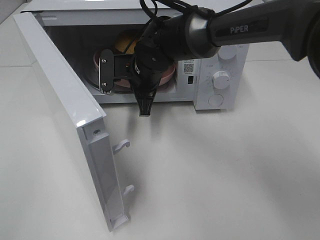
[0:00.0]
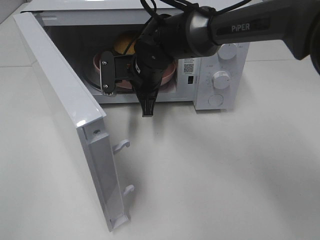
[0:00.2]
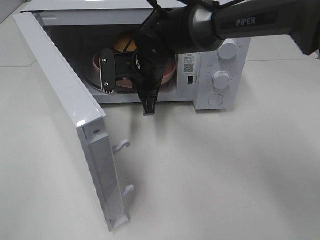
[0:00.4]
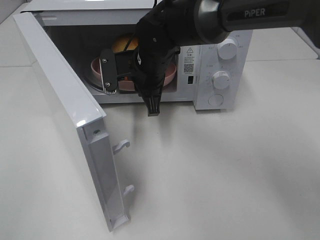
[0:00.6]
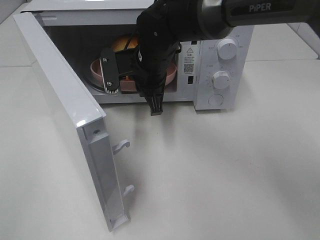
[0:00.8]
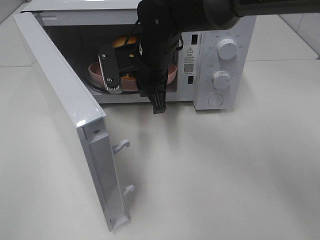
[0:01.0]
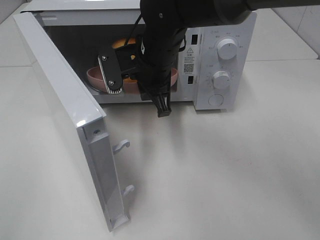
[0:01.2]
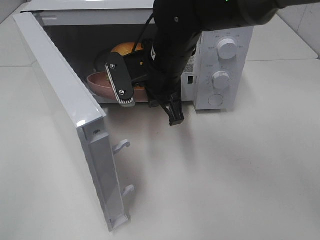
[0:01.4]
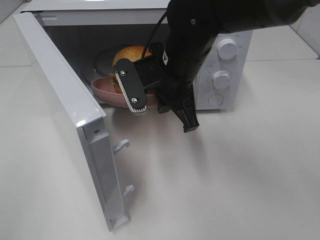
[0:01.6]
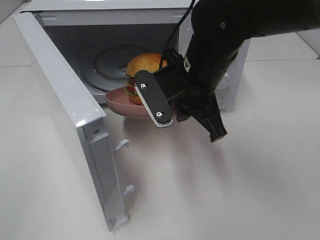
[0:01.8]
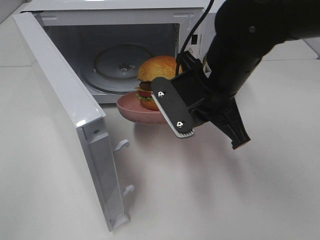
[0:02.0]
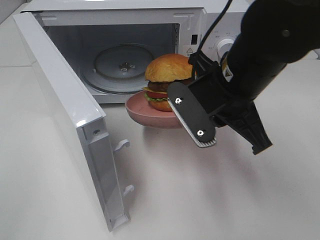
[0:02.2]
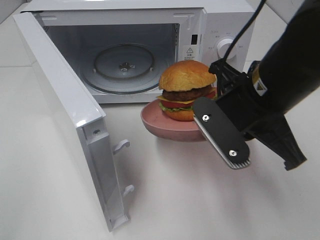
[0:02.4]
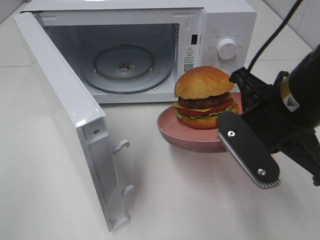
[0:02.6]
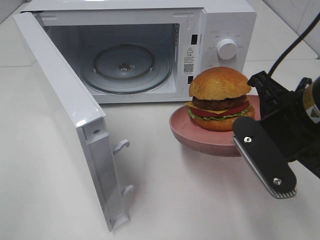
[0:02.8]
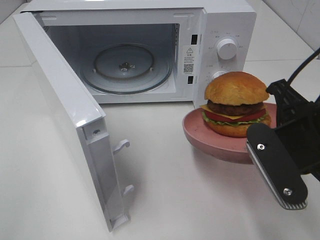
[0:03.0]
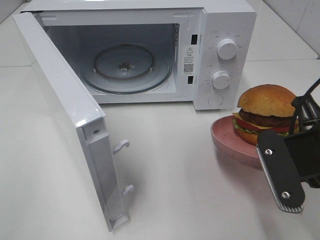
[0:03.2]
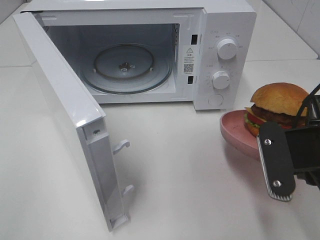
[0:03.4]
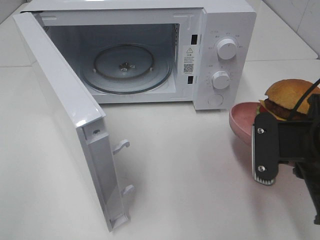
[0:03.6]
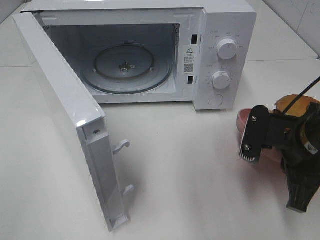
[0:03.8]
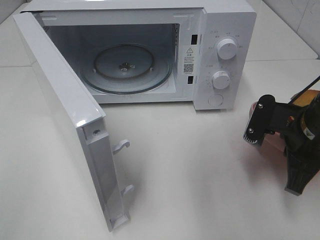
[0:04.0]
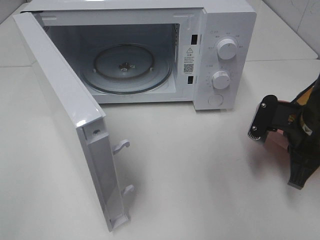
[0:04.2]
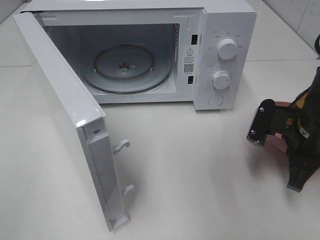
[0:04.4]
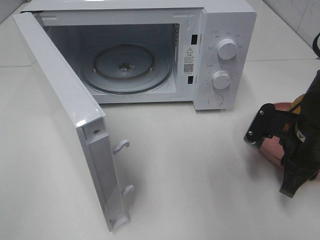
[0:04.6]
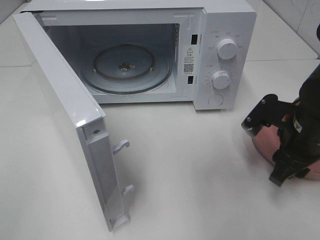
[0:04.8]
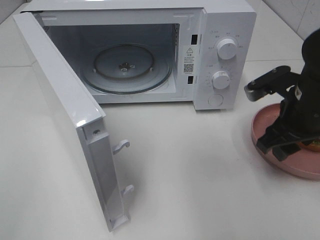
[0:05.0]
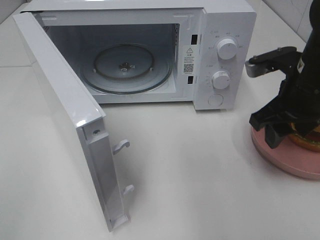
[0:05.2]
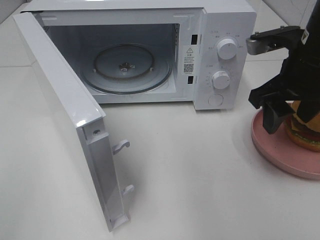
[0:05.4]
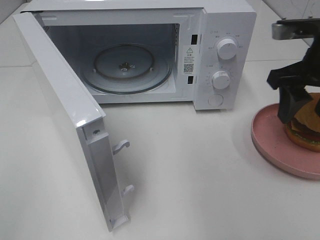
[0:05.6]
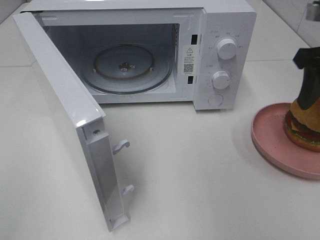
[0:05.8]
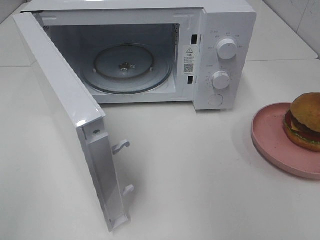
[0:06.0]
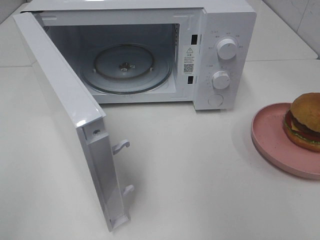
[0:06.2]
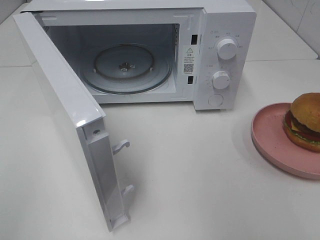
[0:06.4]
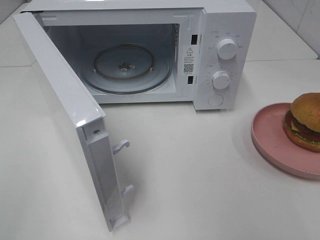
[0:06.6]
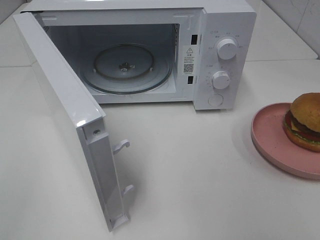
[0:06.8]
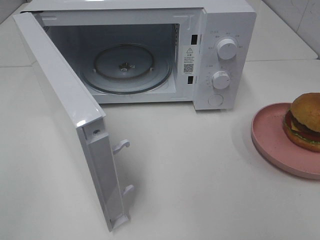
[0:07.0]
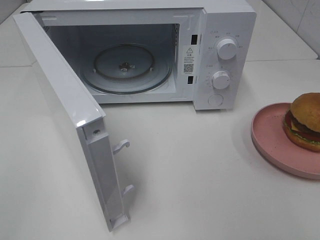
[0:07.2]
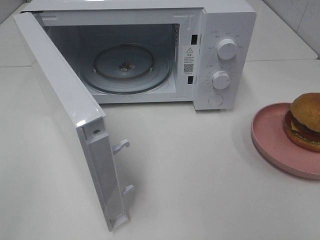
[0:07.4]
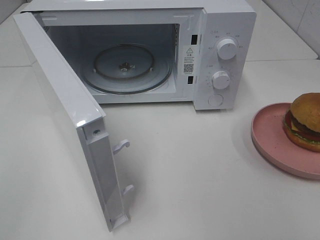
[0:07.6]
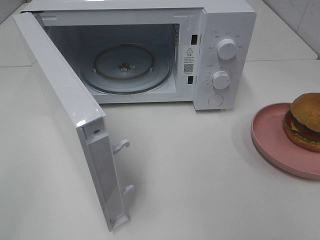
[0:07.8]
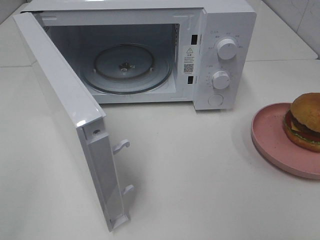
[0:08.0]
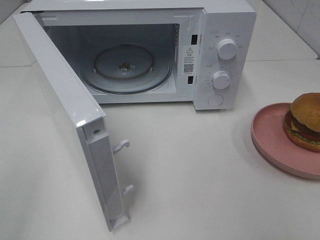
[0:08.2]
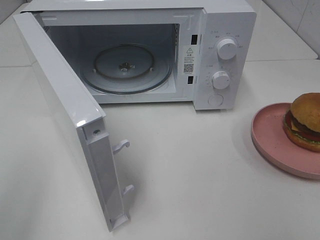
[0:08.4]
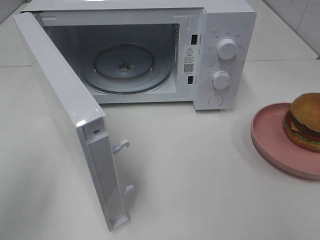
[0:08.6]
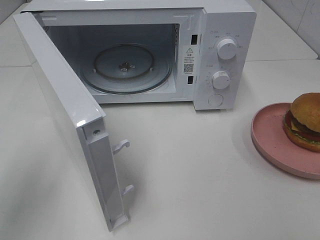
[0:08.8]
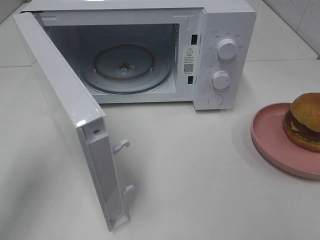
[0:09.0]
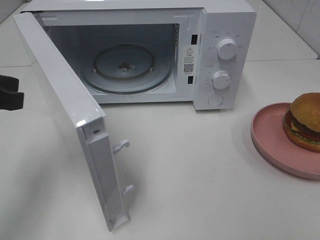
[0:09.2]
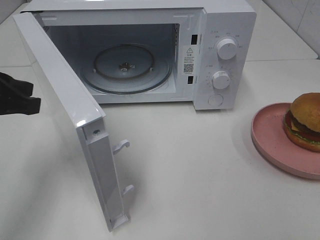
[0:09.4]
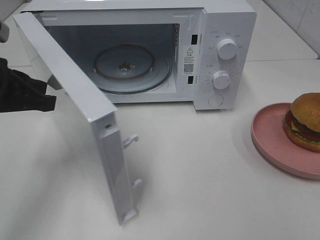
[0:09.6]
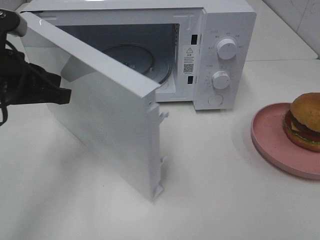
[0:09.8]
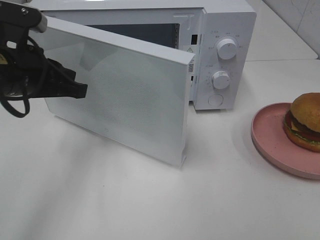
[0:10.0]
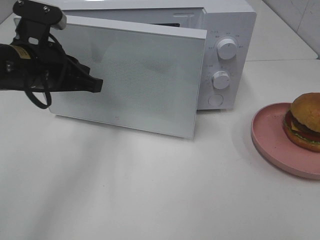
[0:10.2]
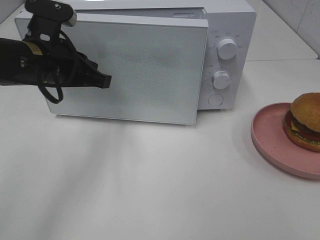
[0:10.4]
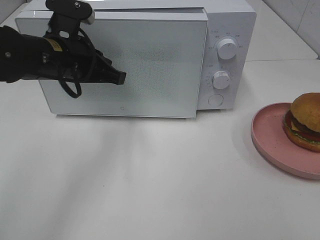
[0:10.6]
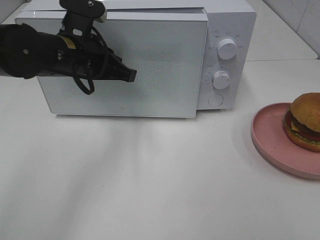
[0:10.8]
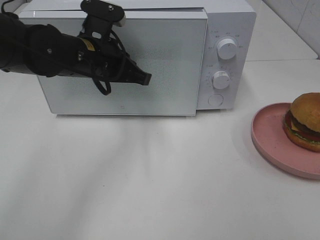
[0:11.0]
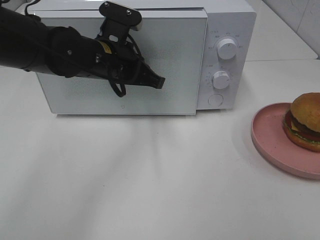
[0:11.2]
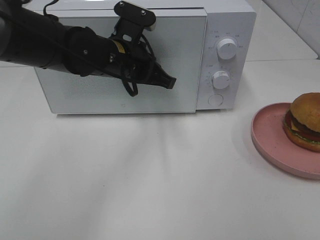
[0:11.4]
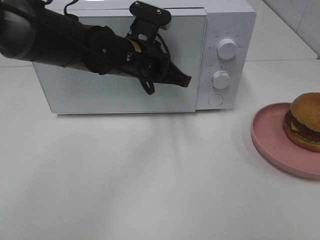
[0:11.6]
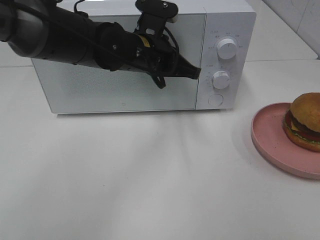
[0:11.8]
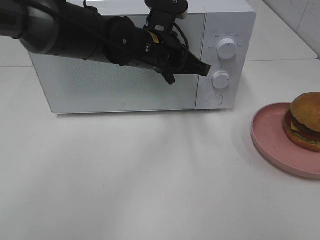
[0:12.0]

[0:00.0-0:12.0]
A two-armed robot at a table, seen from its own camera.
Task of the whole recording: Heat the burger.
Step, 0.0 to 4.8 s: Right hand: place the plate on the table.
0.0 to 1.6 s: The right gripper goes some 10 cm backward, upward and to the right.
1.6 to 3.0 s: The right gripper travels to the right and backward by some 20 cm.
3.0 to 4.4 s: The right gripper is displaced downward, forward and to the right by about 15 cm.
4.4 to 6.0 s: The right gripper moves upward, some 20 cm, and opens.
7.6 to 9.0 s: The left gripper is displaced forward by about 20 cm.
9.0 to 10.4 s: The left gripper goes approximately 15 cm forward and to the right.
10.4 to 12.0 s: The left gripper heads to the right, covering roughly 15 cm.

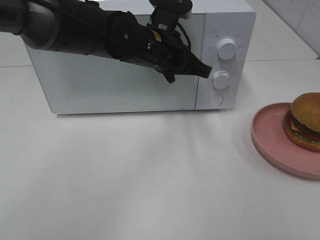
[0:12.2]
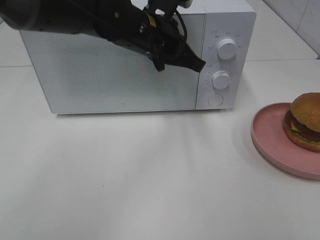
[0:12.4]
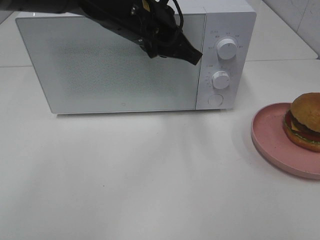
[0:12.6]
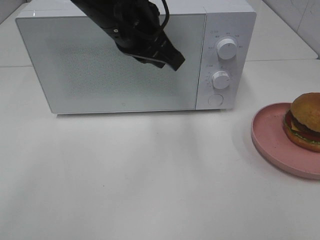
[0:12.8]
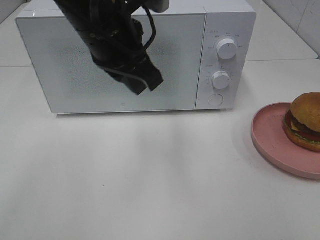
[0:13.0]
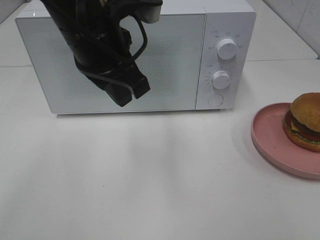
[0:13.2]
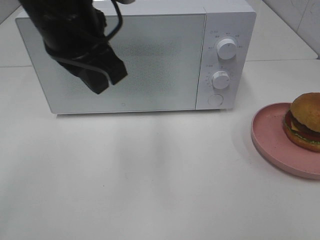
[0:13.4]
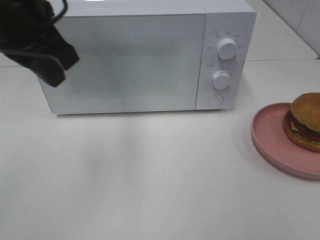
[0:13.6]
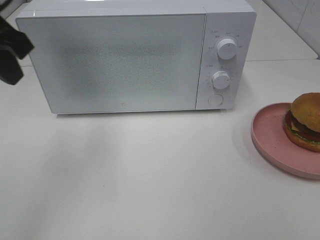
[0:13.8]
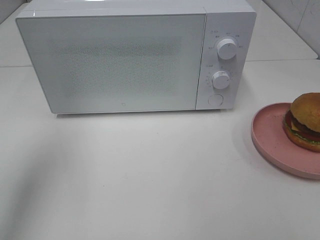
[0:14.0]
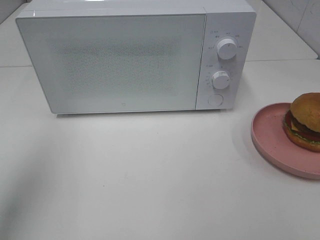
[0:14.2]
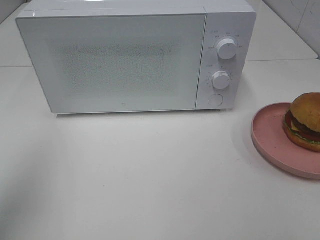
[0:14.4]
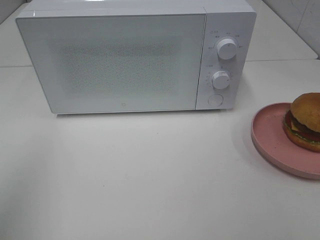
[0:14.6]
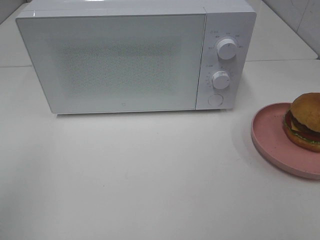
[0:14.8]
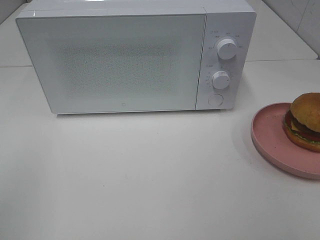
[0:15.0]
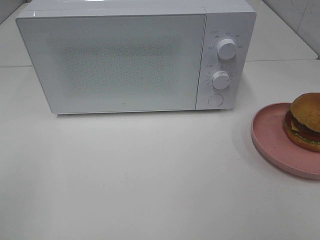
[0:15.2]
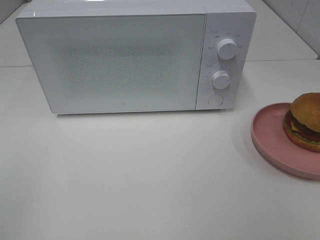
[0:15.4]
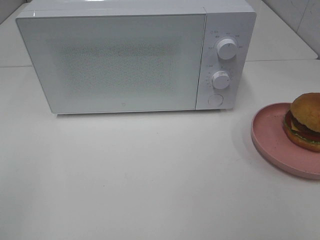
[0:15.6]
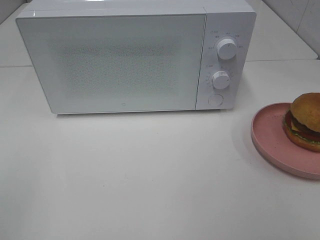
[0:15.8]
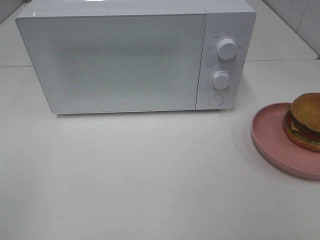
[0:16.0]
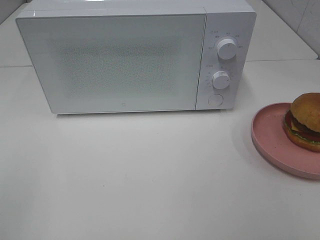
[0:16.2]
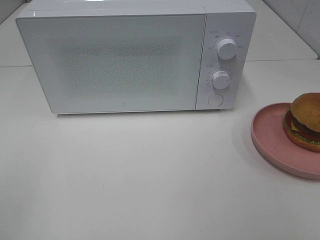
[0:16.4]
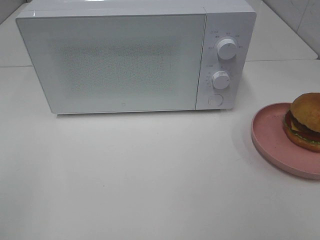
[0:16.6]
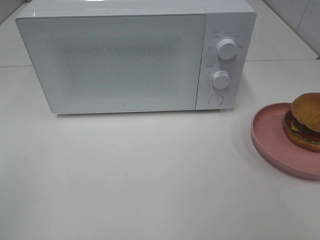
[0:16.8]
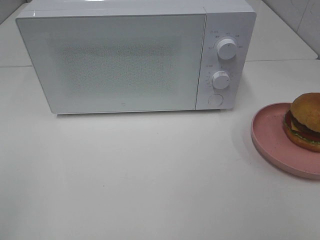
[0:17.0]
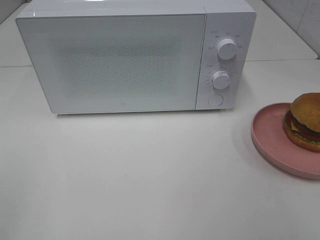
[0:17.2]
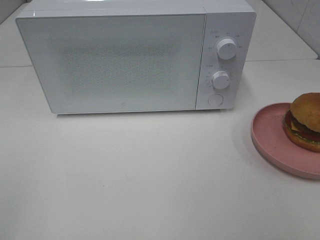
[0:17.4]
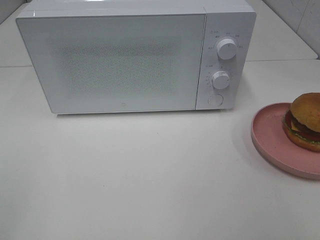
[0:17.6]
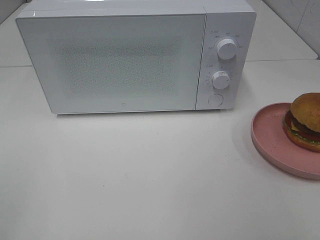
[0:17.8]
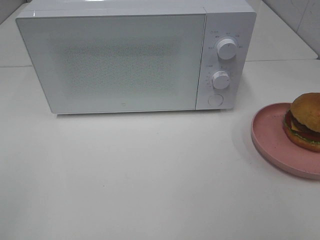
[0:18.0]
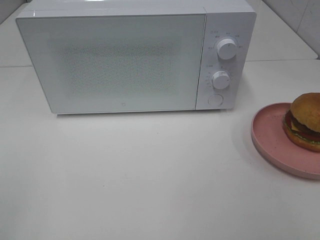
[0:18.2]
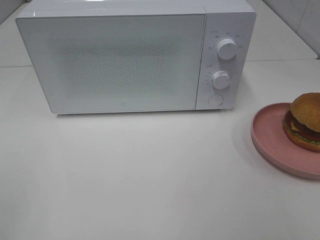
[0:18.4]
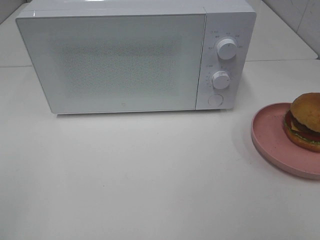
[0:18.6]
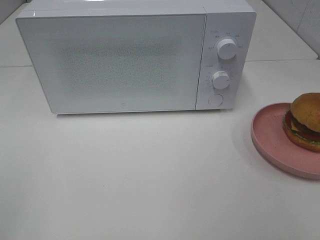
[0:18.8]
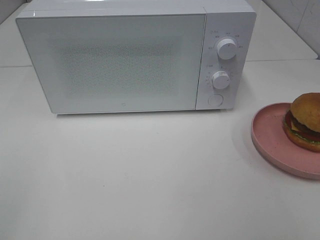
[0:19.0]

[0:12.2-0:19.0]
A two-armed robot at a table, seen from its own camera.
Task of the whole recording: Heat the burger.
12.2 to 13.6 s: The left gripper moves to the left, upward and backward, roughly 20 cm.
13.6 to 15.0 s: The left gripper shifts roughly 30 cm backward and to the left.
17.6 to 19.0 s: Both grippers stay about where they are.

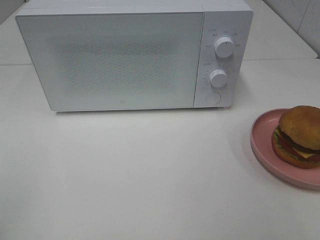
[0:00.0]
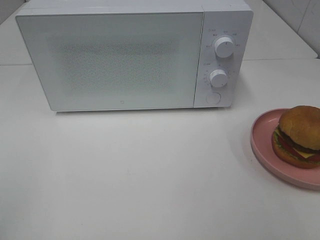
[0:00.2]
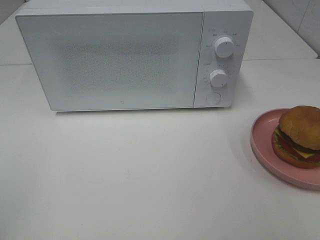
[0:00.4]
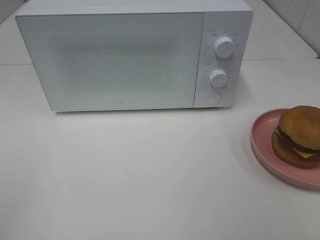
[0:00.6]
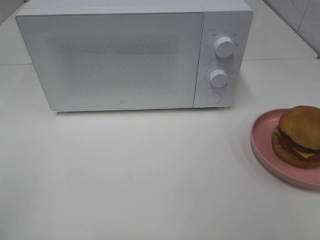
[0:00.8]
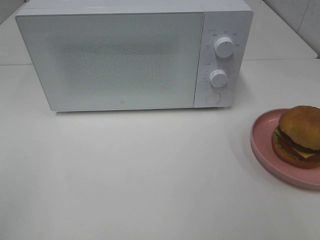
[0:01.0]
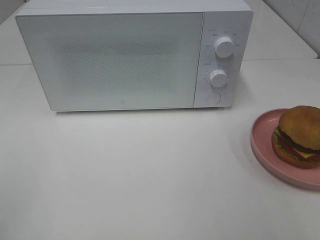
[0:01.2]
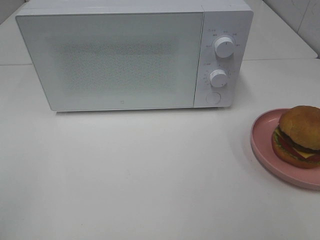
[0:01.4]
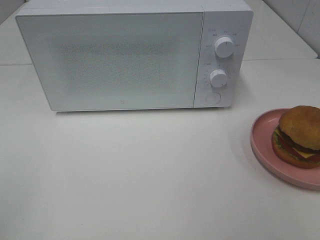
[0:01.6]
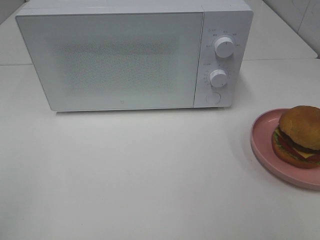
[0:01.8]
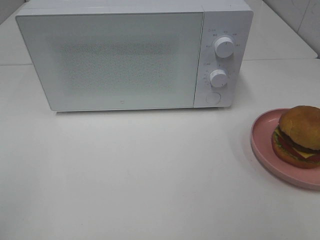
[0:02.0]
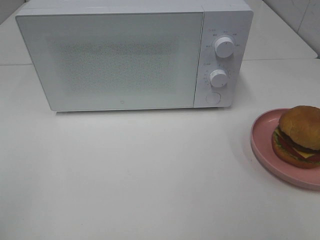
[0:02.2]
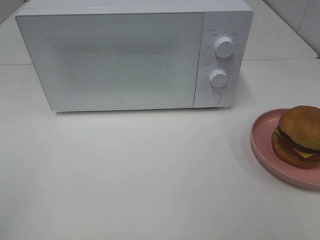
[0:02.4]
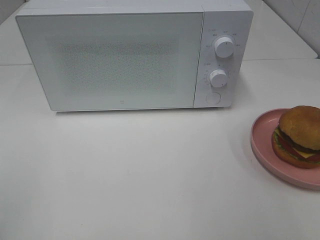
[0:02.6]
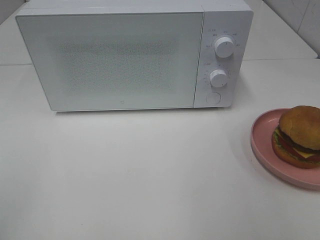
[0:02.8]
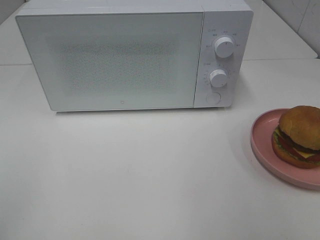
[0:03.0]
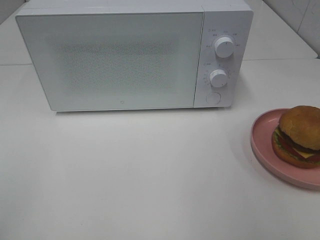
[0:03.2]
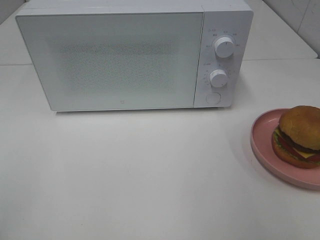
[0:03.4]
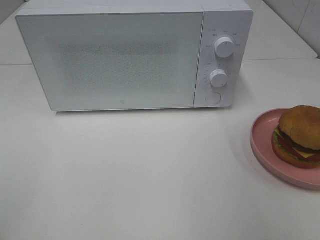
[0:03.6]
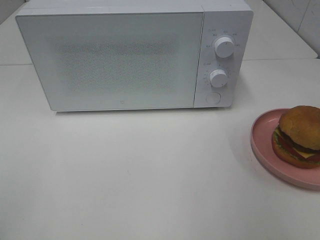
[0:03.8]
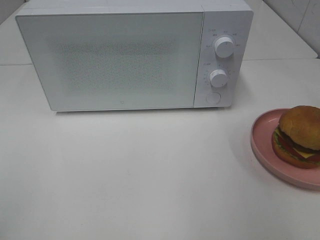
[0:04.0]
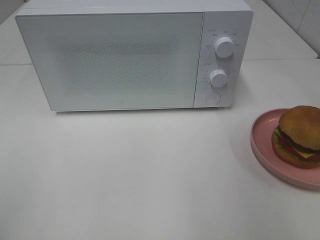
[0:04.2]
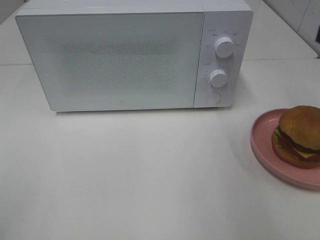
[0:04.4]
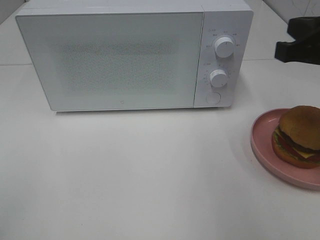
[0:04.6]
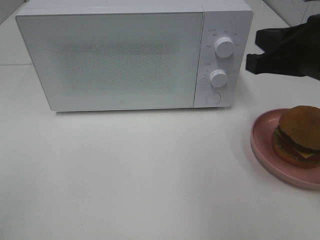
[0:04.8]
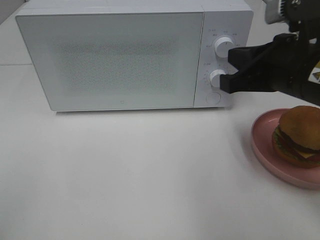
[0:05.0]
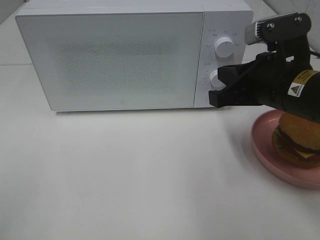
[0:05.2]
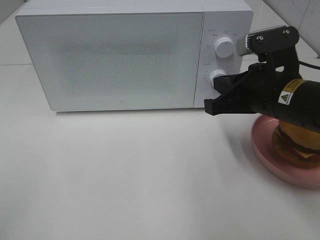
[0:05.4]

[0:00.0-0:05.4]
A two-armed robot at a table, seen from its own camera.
Task of the whole recording: Heat the burger.
0.0 to 1.4 s: Both grippers stay about where they are.
4.0 to 5.4 s: The right gripper moves to the left, downward and forward, some 20 cm.
